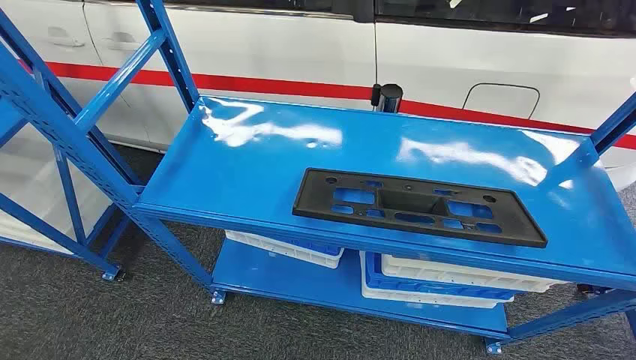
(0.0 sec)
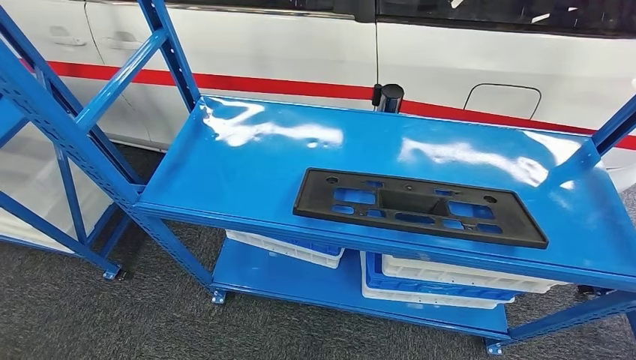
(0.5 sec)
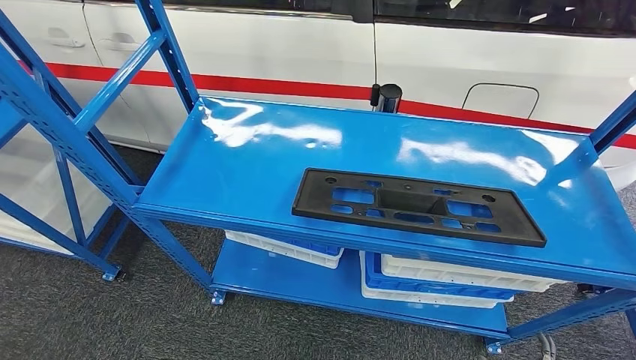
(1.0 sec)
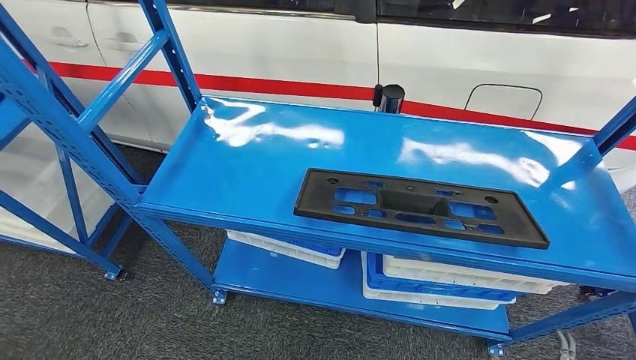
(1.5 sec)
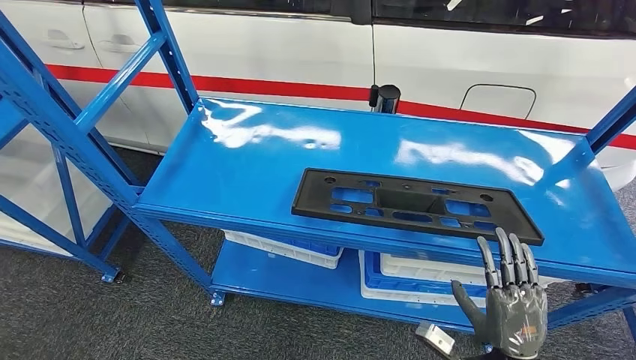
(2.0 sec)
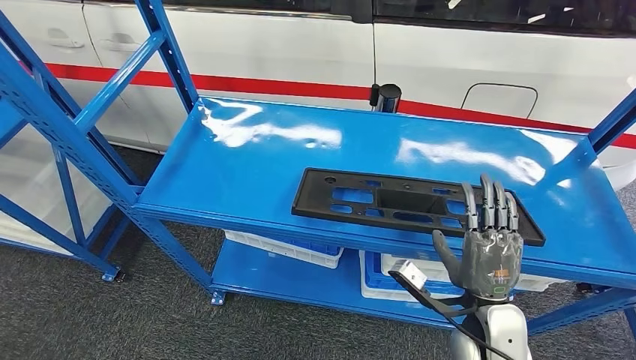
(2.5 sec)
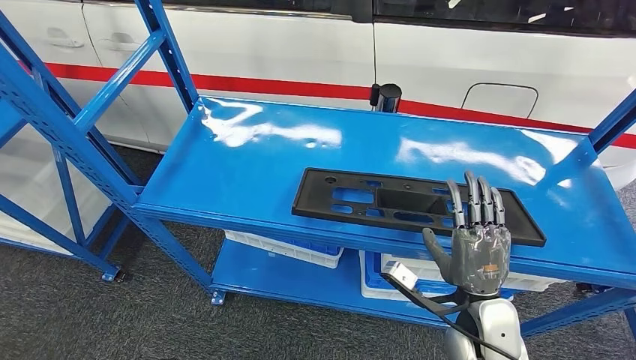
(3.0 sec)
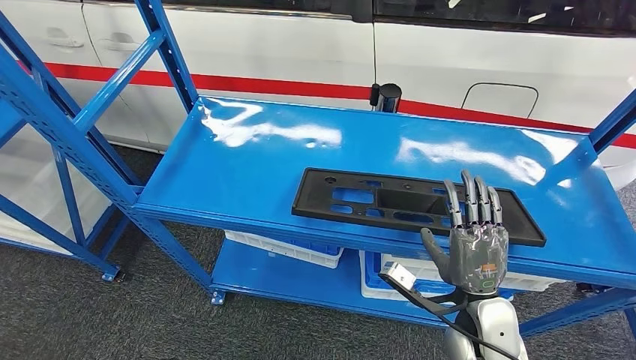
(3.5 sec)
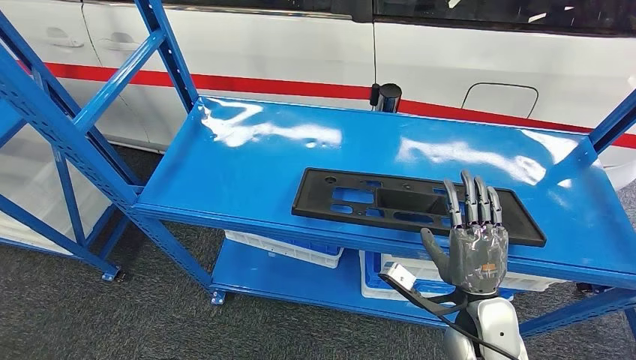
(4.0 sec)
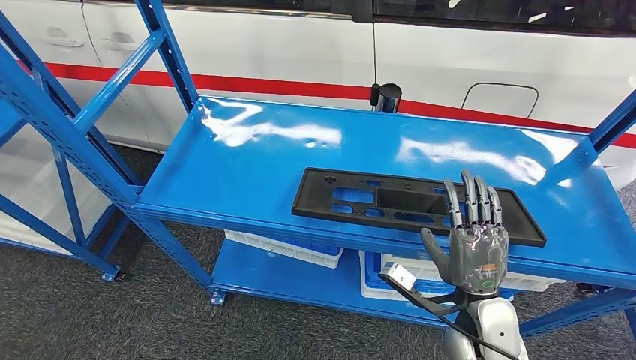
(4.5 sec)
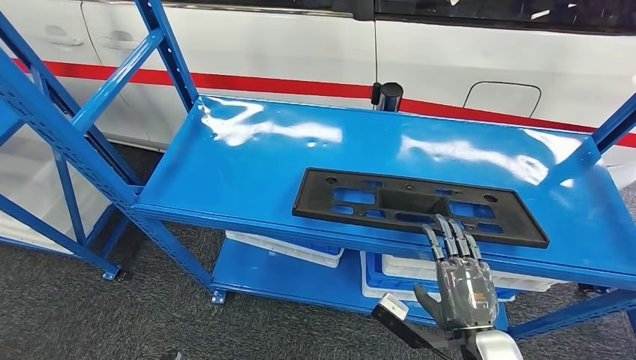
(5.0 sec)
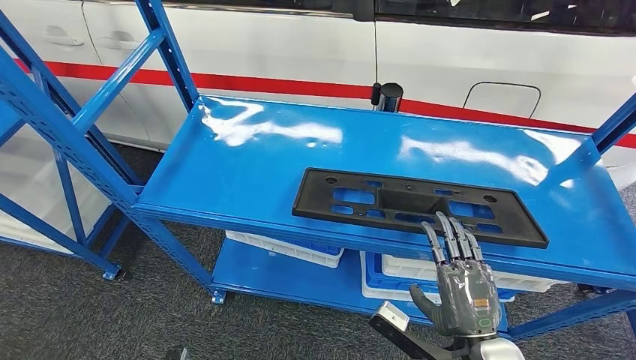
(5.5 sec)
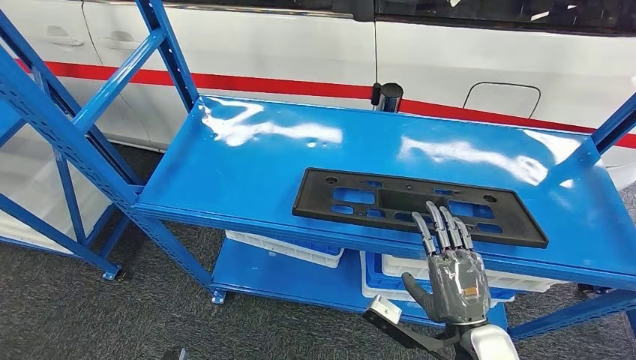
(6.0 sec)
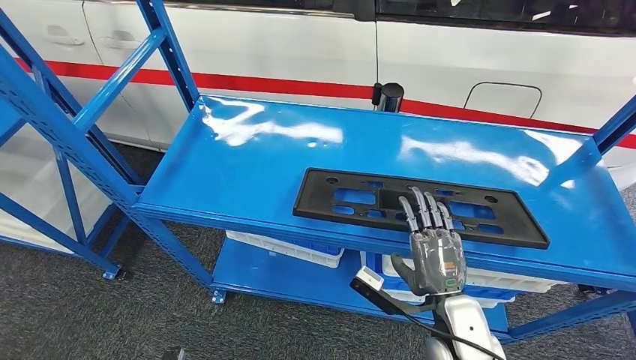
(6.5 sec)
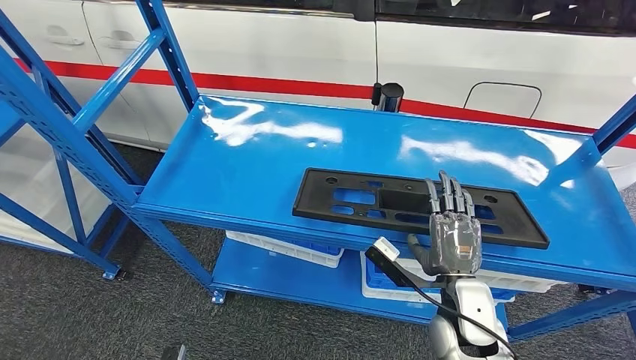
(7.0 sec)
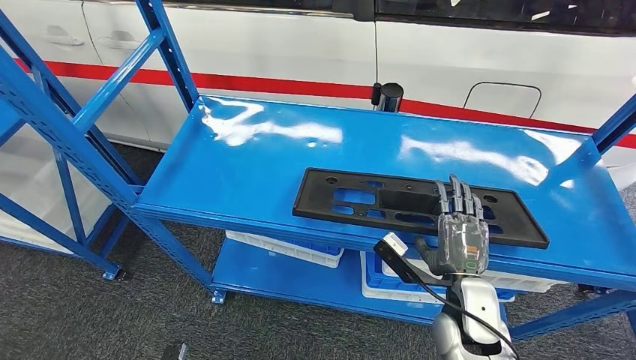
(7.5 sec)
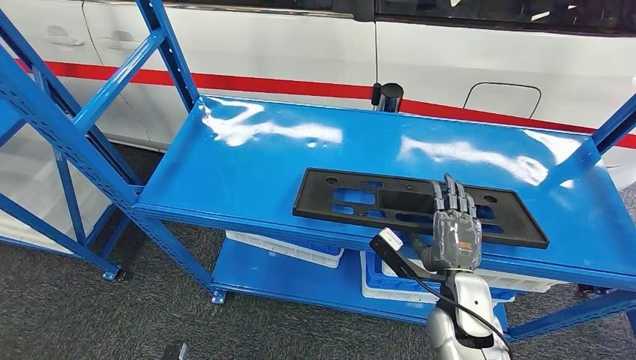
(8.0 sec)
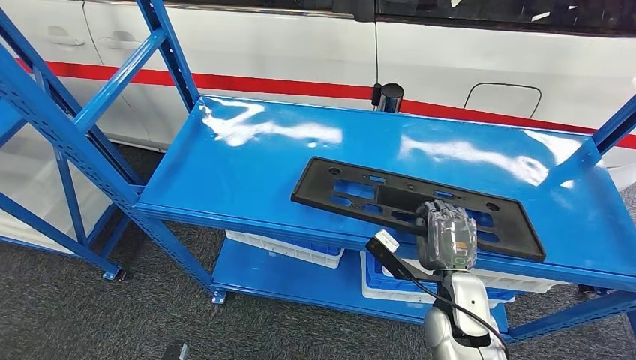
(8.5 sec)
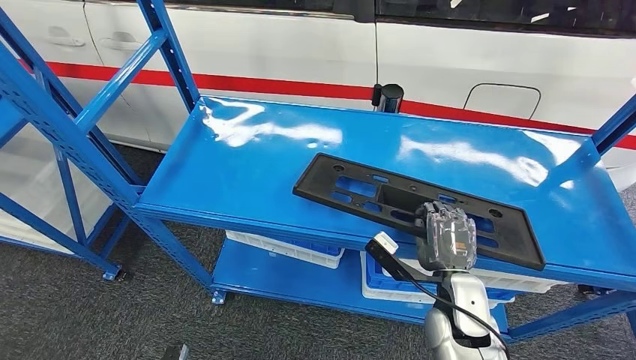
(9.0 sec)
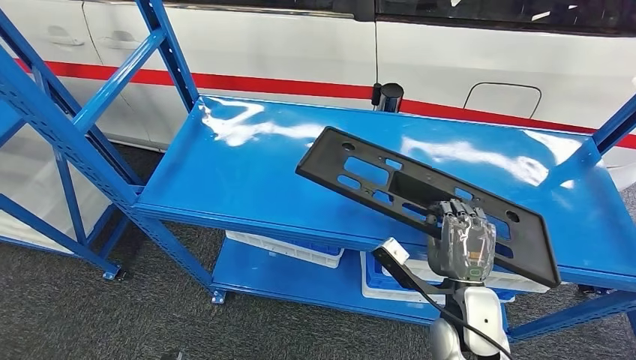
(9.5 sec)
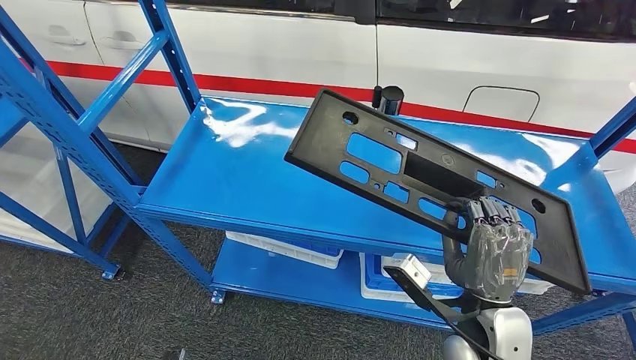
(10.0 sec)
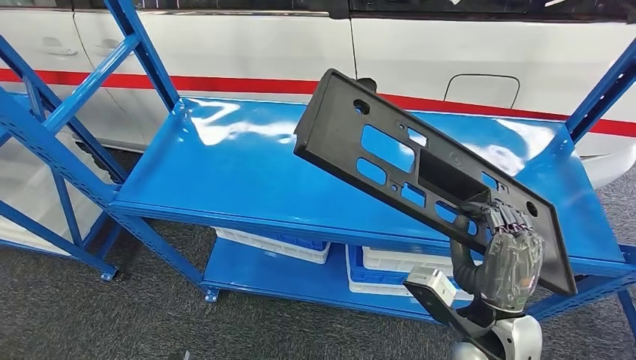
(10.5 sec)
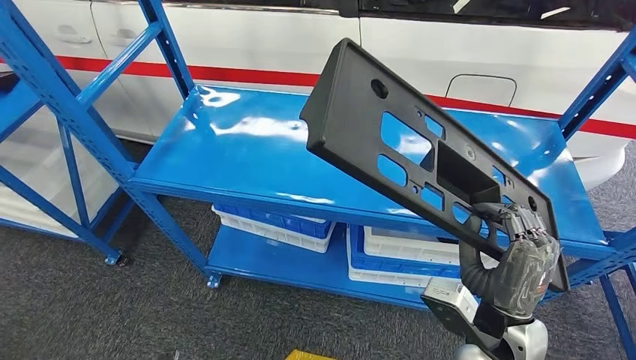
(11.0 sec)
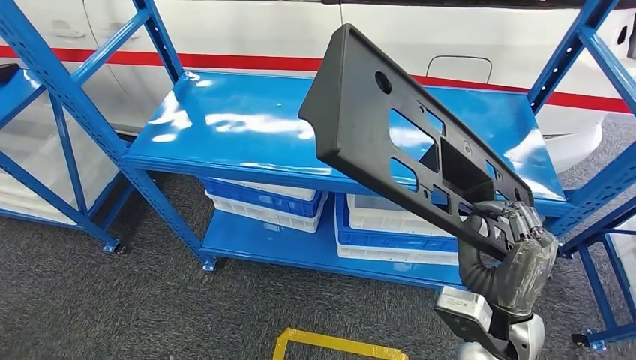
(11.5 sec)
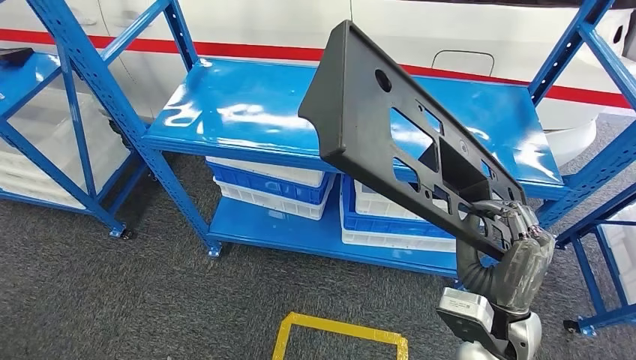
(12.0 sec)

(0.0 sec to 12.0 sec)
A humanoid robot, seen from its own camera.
Step, 0.0 sec - 11.5 sec: Pick up the large material from the shelf.
2.0 sec - 4.0 sec: The right hand shifts approximately 5 cm to the left.
4.0 sec - 6.0 sec: The right hand goes about 5 cm backward.
6.0 sec - 8.0 sec: The right hand moves forward, approximately 10 cm.

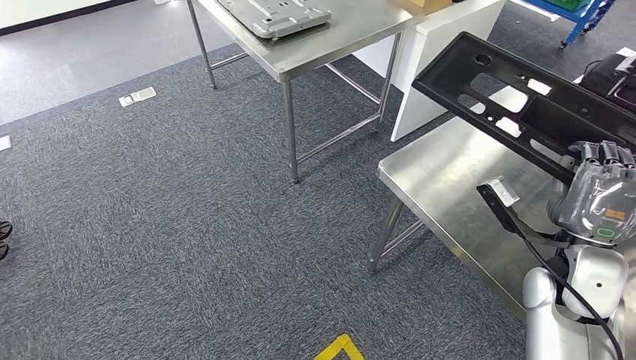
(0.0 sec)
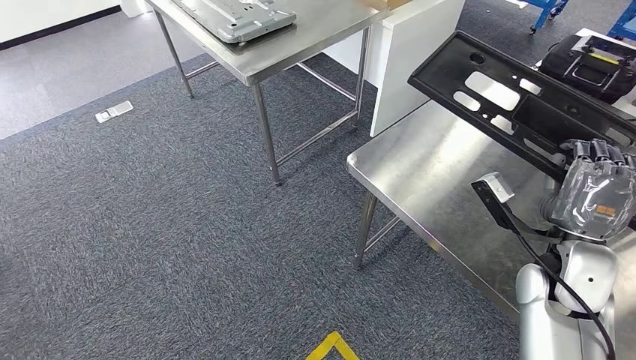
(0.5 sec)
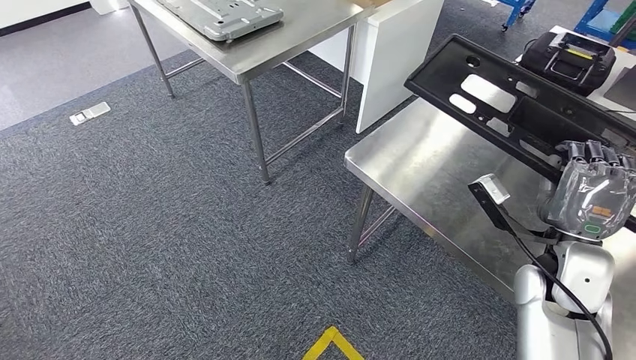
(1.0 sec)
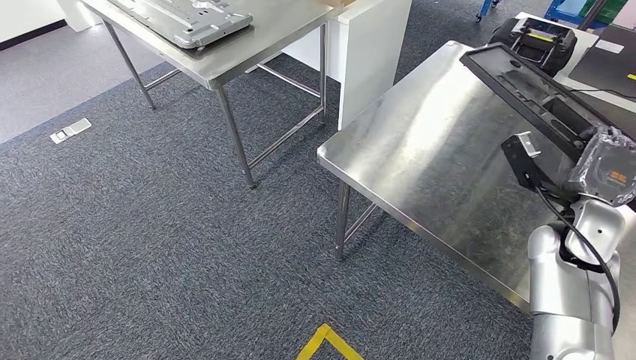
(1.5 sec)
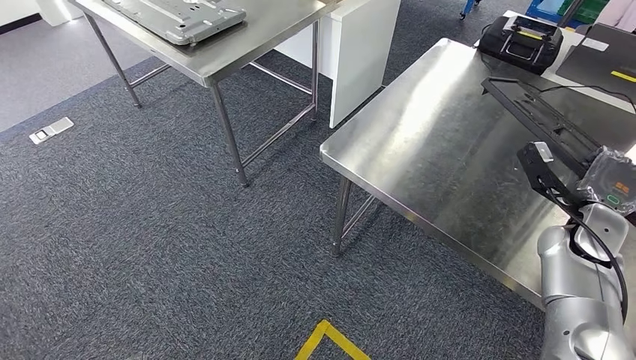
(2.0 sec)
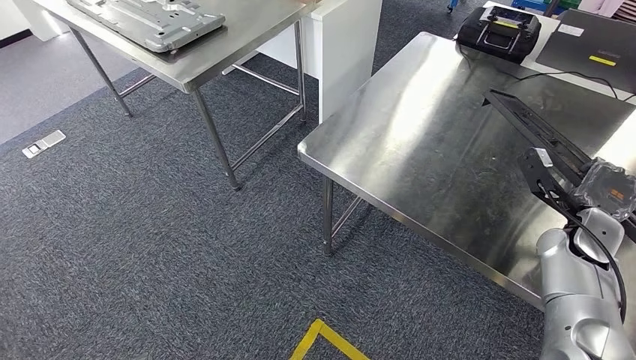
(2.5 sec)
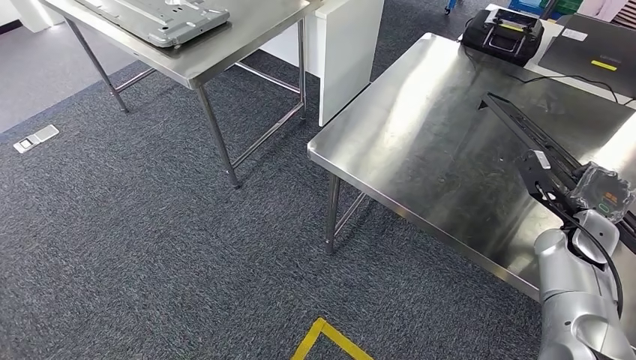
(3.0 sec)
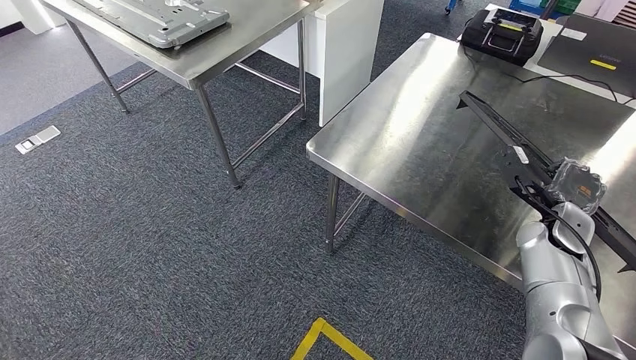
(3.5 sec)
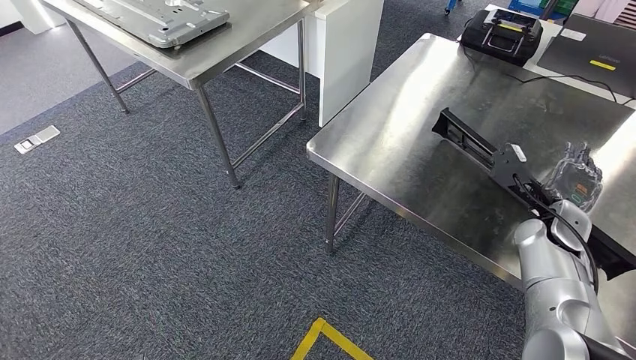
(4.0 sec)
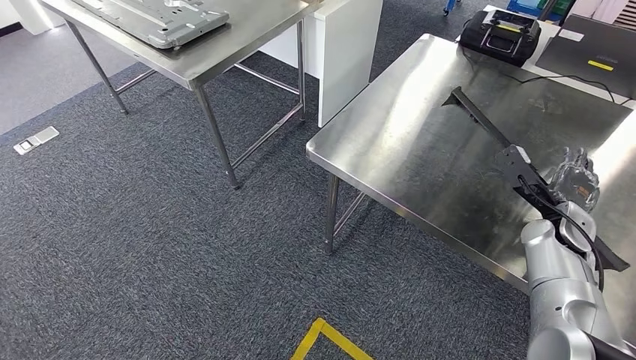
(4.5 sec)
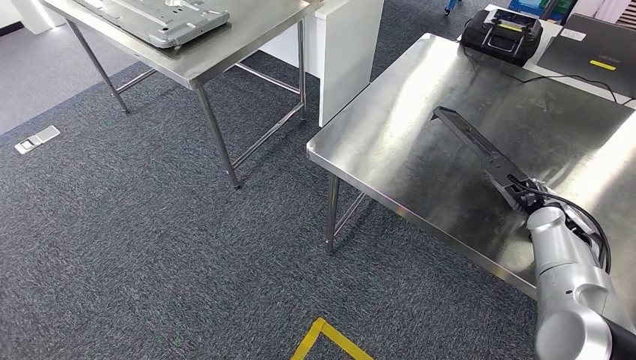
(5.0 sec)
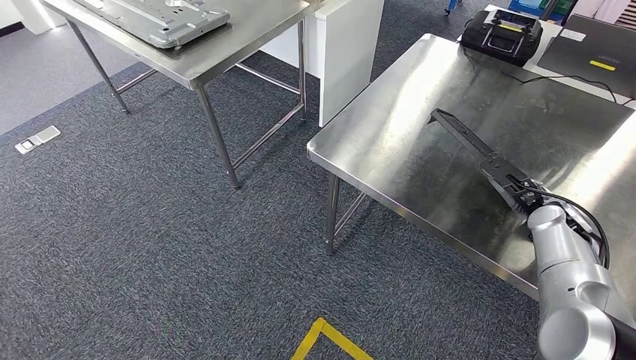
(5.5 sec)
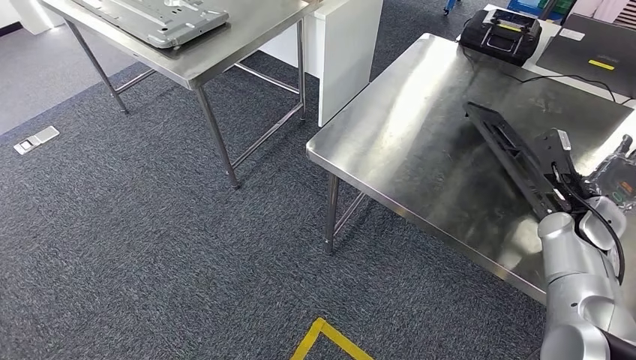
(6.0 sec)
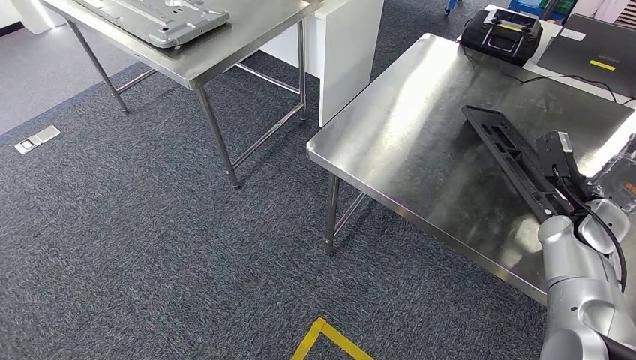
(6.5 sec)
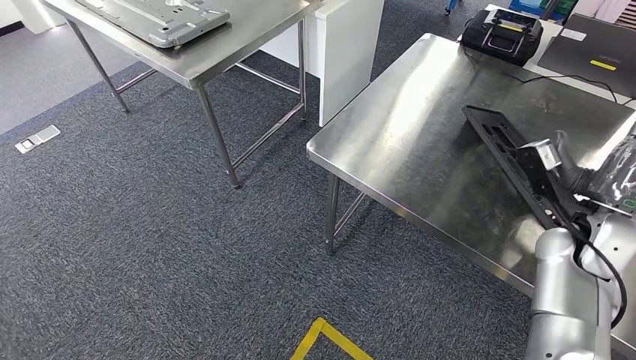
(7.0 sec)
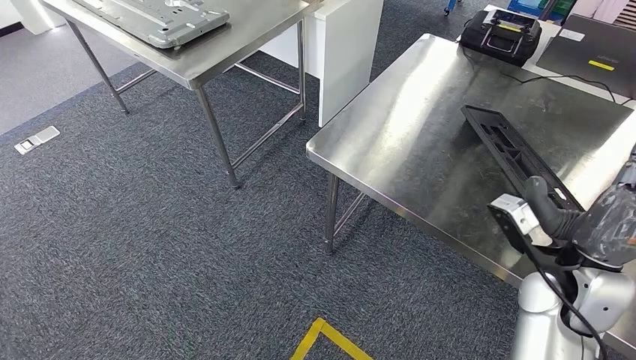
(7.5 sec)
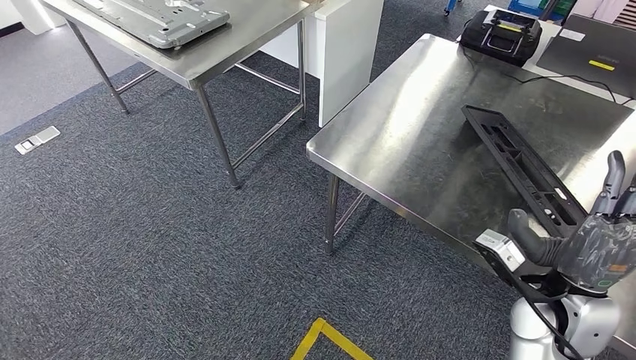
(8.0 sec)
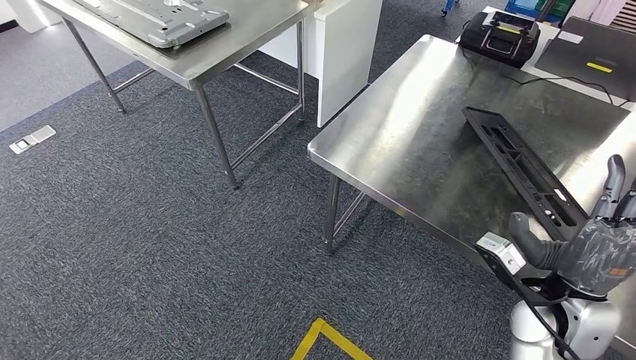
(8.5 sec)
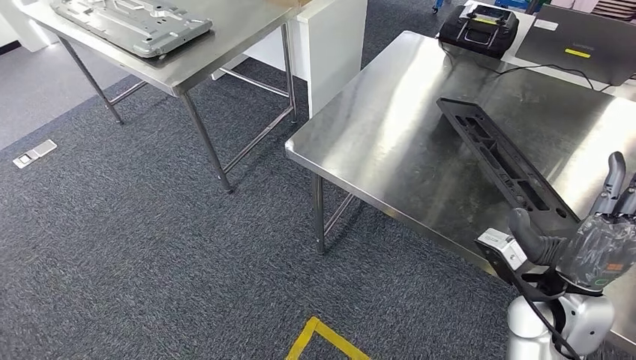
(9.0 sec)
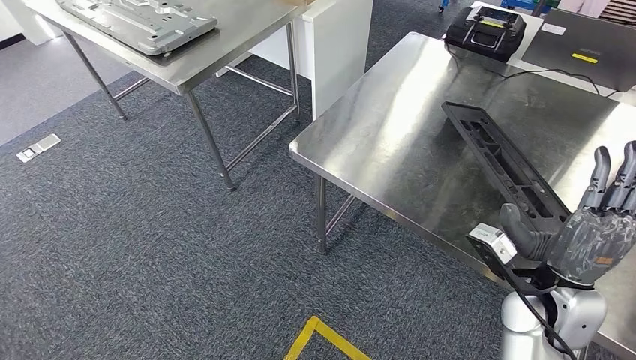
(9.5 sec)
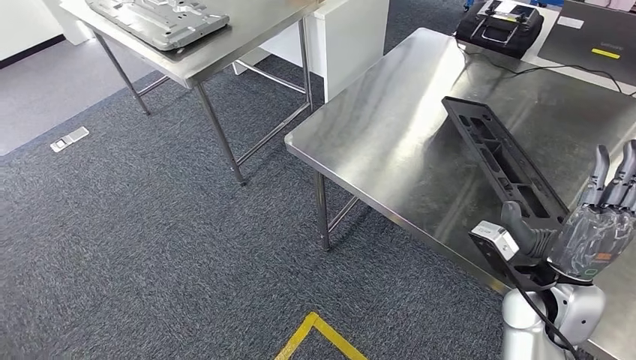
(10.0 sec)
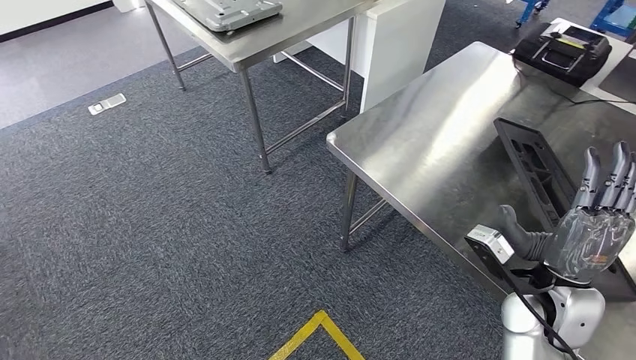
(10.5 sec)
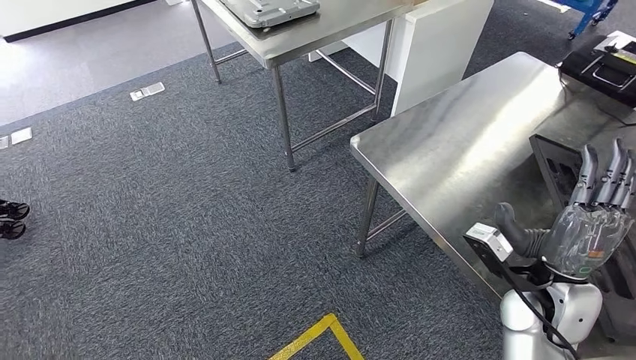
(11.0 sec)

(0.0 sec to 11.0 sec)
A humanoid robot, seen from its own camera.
5.5 sec - 7.5 sec: The right hand goes about 20 cm to the left, backward and upward.
